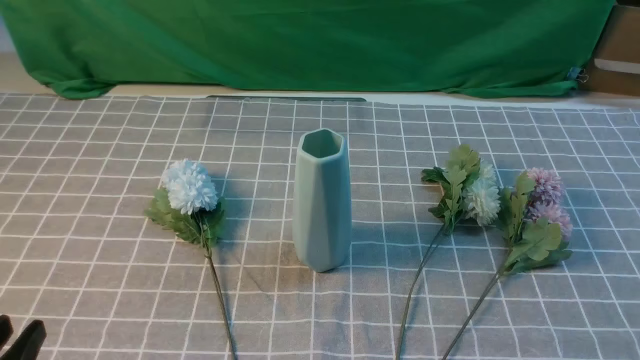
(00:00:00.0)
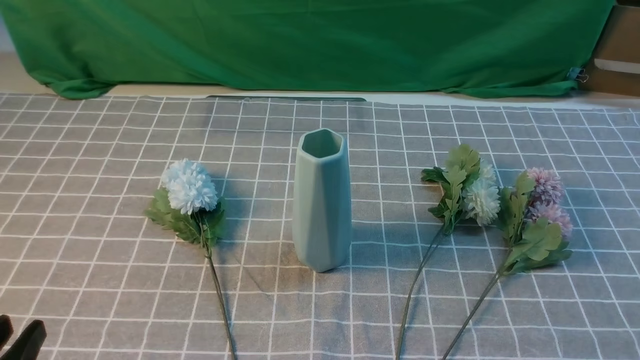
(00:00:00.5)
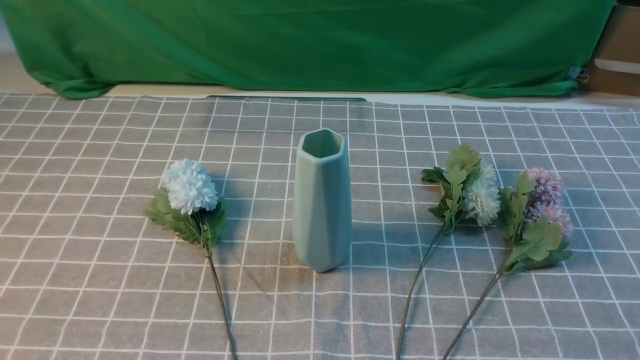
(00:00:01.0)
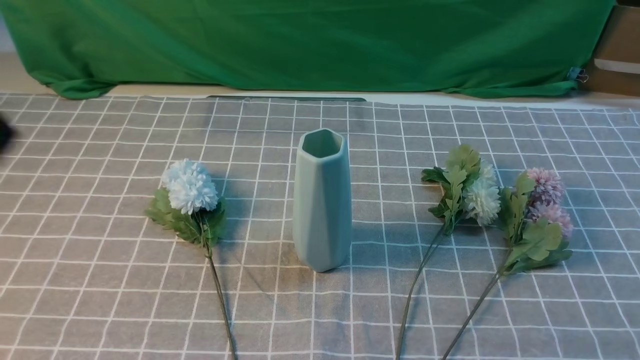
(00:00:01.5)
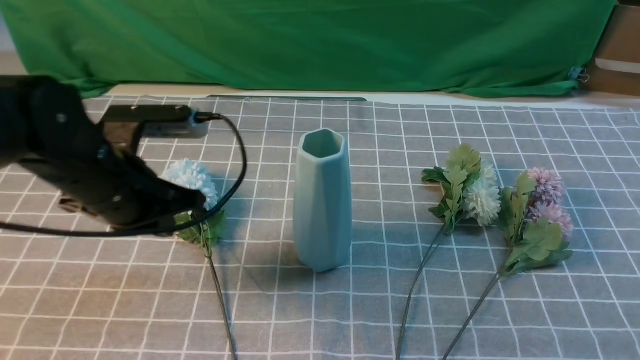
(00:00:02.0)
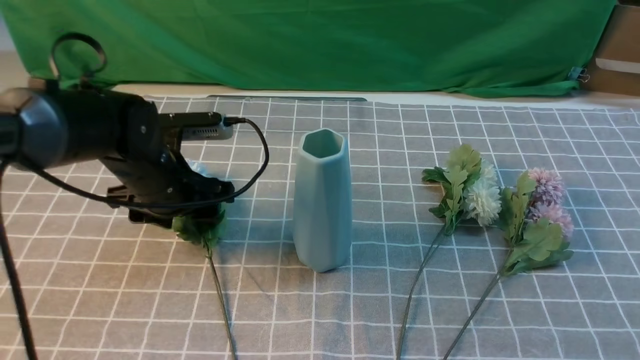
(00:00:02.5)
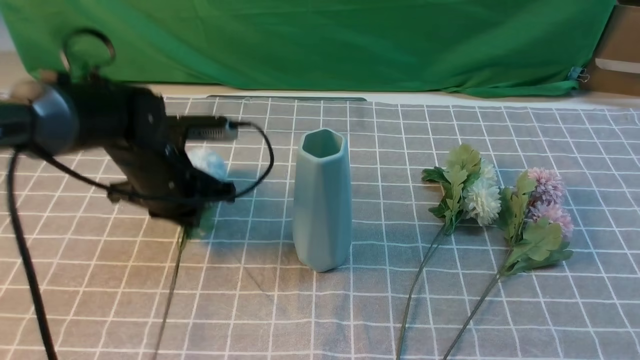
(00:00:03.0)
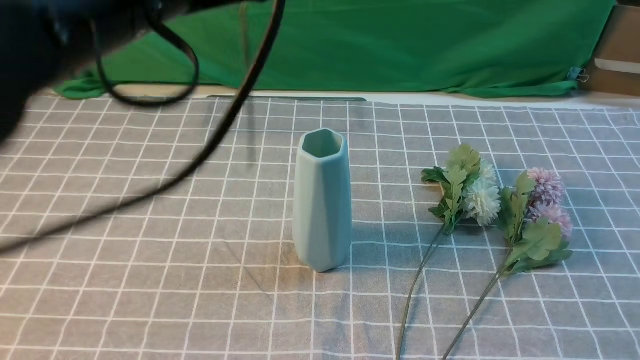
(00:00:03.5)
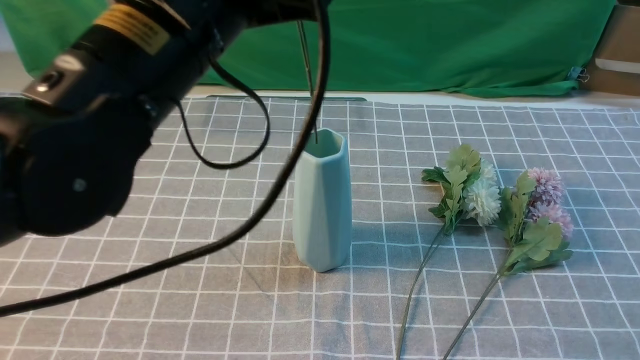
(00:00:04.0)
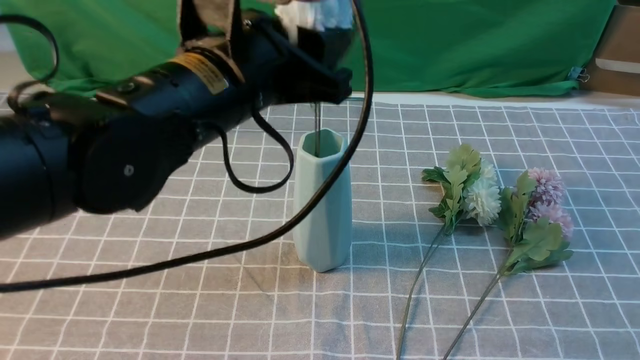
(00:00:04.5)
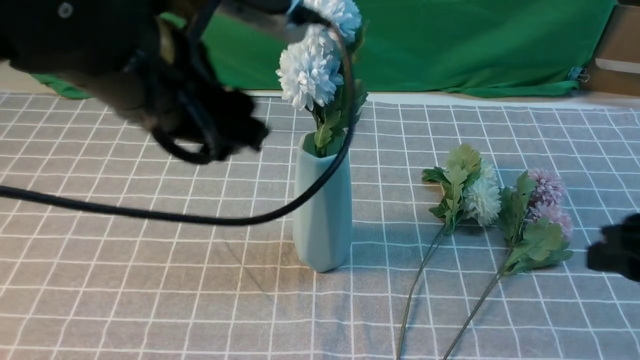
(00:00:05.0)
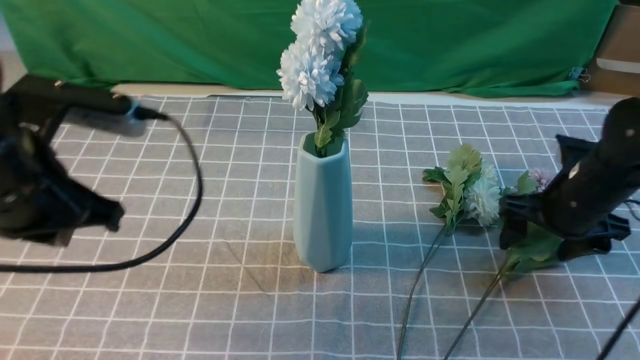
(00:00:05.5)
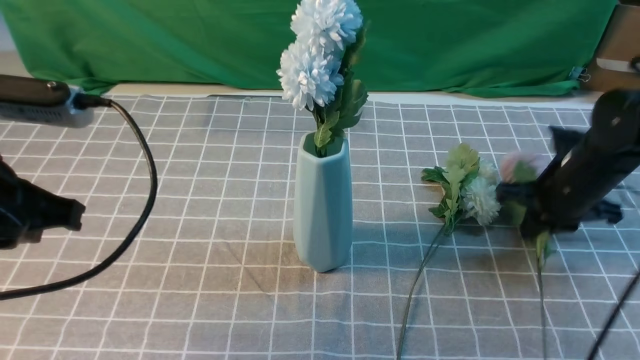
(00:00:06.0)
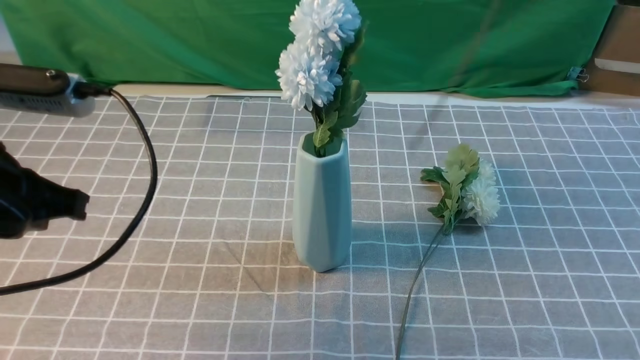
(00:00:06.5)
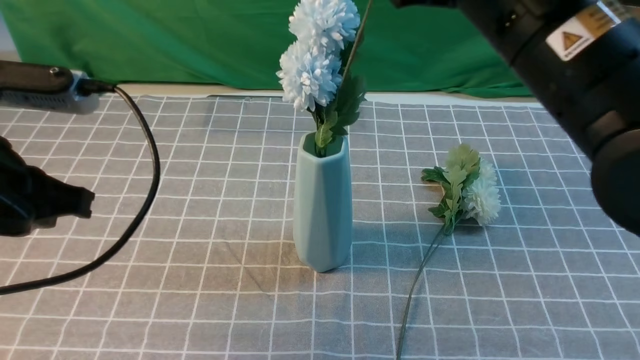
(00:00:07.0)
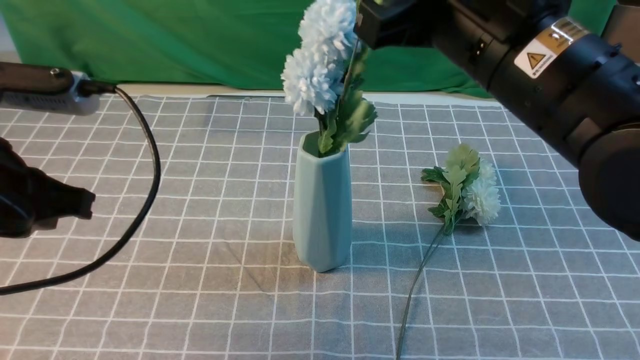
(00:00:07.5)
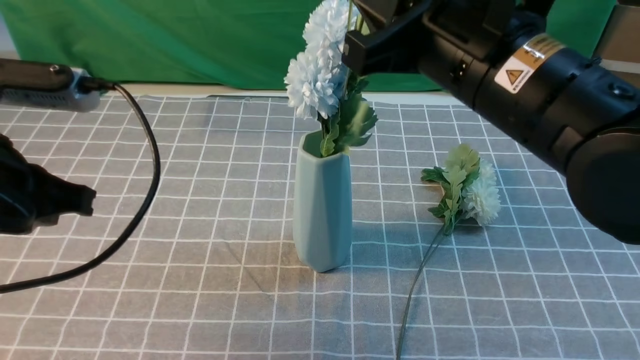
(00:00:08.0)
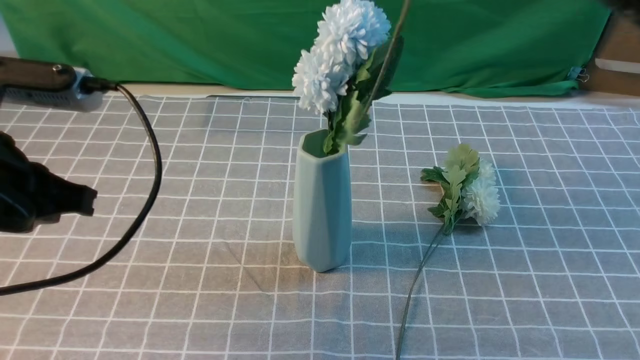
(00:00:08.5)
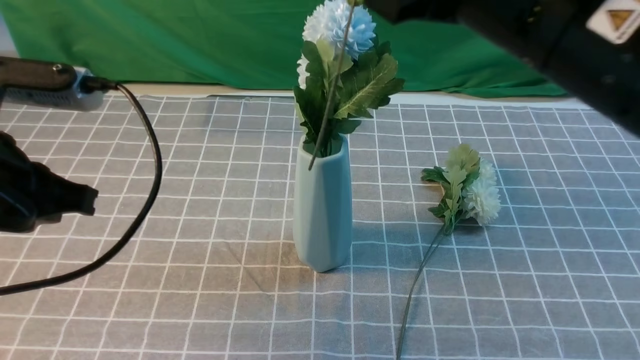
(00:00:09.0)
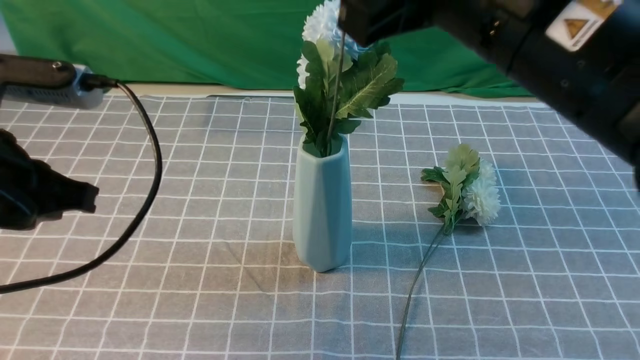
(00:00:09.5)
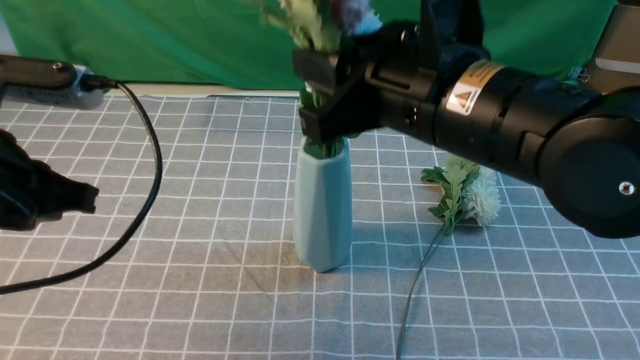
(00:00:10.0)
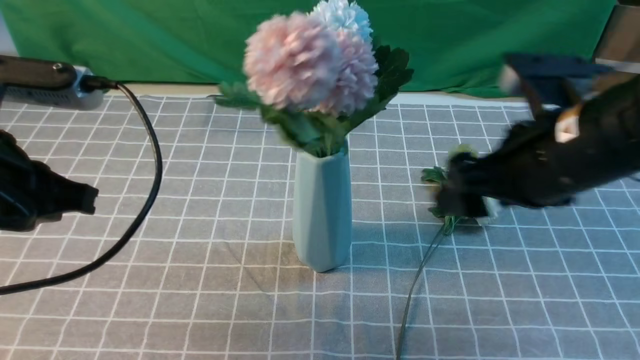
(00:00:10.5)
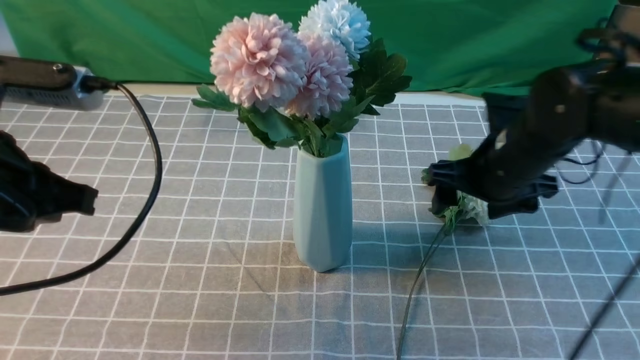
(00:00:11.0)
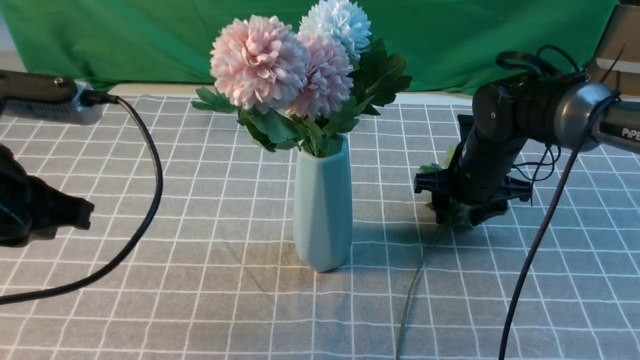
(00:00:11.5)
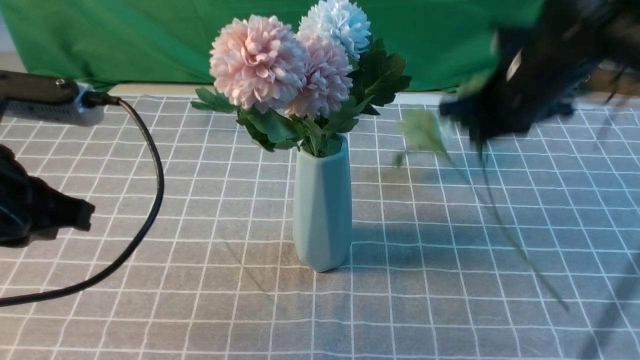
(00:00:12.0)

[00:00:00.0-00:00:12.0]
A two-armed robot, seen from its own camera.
Task of the whole recording: insert the flowers into the vase on the table with the grey tablecloth.
Step, 00:00:00.0 to 00:00:03.0: use the left arm to grab a bunch of fresh flowers.
Step, 00:00:03.5 to 00:00:04.5: use the left arm to insert the flowers into the vase.
Step, 00:00:05.0 to 00:00:05.5: use the right arm to grab a bunch of fresh flowers.
Step, 00:00:06.0 to 00:00:10.0: use the right arm to insert the flowers into the vase.
Step, 00:00:10.5 to 00:00:11.5: use the right arm to grab a bunch of fresh flowers.
00:00:00.0 to 00:00:02.0: The right gripper is displaced upward by approximately 10 cm. The left gripper goes about 25 cm forward, and closes.
00:00:02.0 to 00:00:04.0: The left gripper travels upward and to the right by about 20 cm, and opens, then closes once more, while the right gripper shifts by roughly 5 cm.
00:00:04.0 to 00:00:06.0: The right gripper goes approximately 30 cm forward and downward, and opens, then closes once more. The left gripper heads to the left and downward, covering about 15 cm, and opens and closes again.
00:00:06.0 to 00:00:08.0: The right gripper goes about 25 cm upward, to the left and backward.
00:00:08.0 to 00:00:10.0: The right gripper goes upward and returns, some 5 cm each way, and opens.
00:00:10.0 to 00:00:12.0: The right gripper moves forward and to the right, approximately 15 cm, goes downward and returns, some 20 cm each way, and closes its fingers.

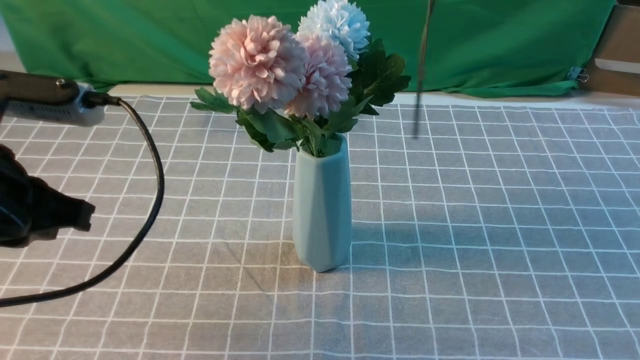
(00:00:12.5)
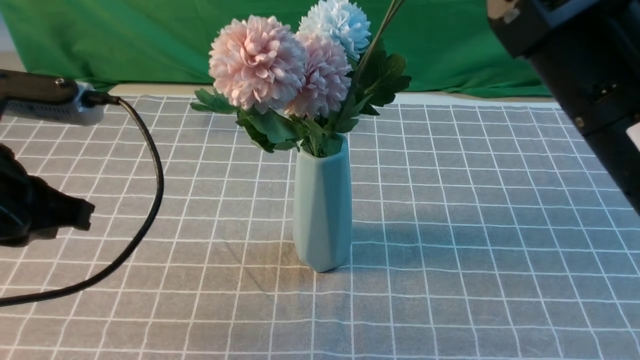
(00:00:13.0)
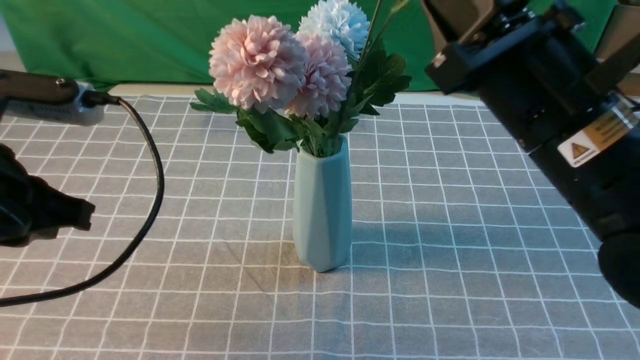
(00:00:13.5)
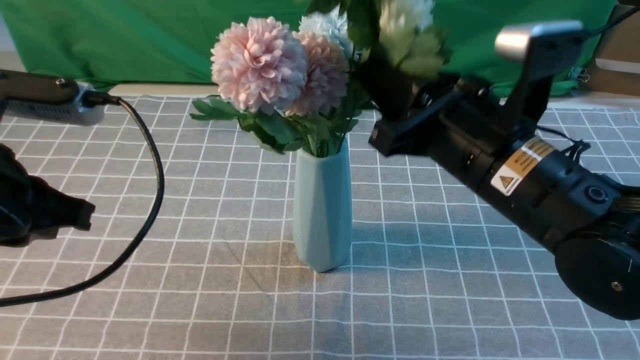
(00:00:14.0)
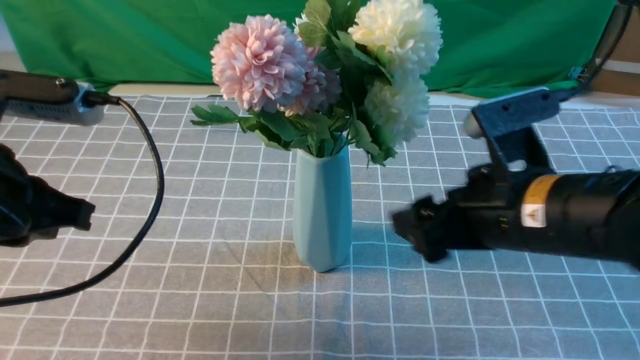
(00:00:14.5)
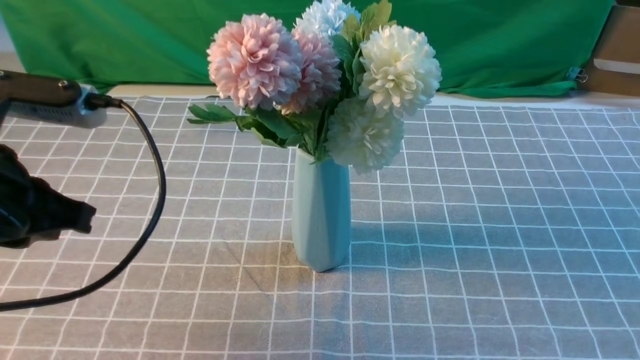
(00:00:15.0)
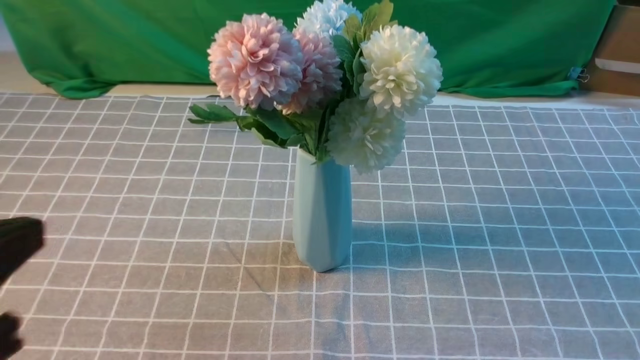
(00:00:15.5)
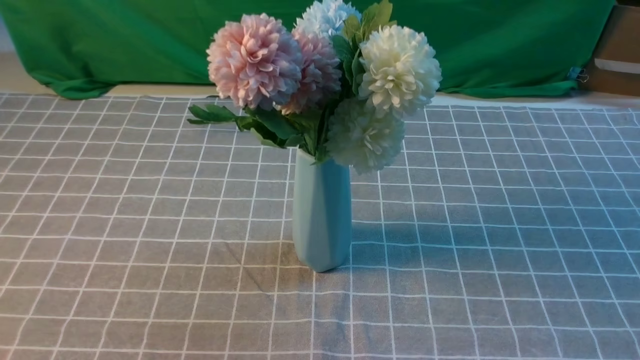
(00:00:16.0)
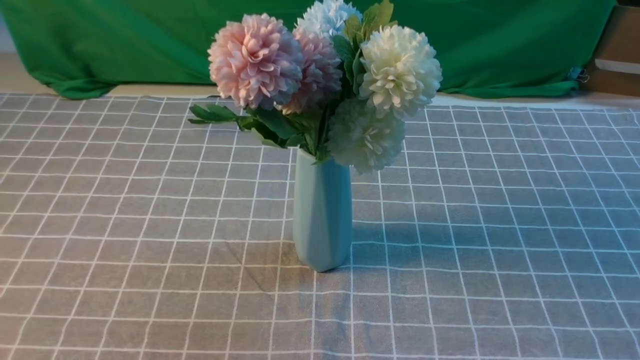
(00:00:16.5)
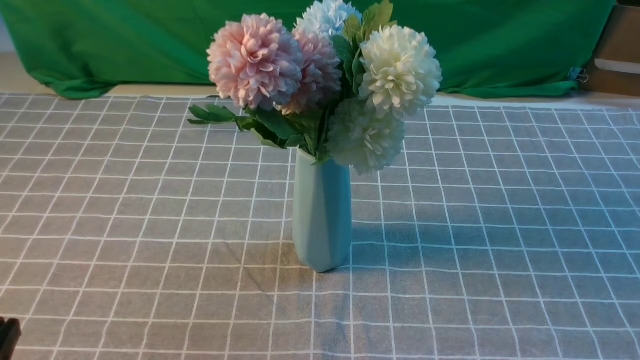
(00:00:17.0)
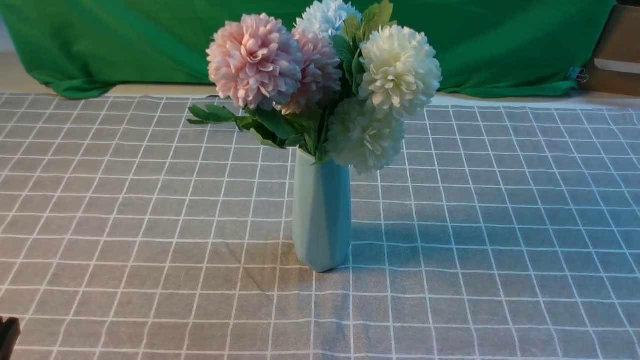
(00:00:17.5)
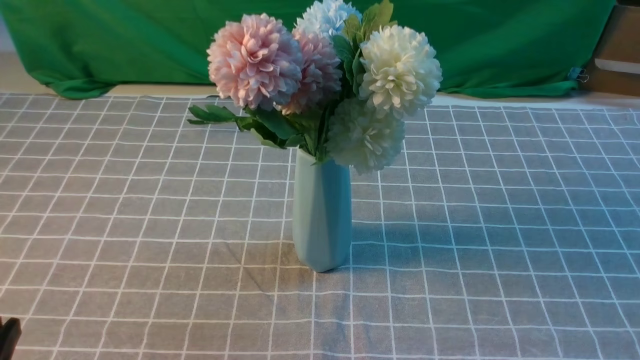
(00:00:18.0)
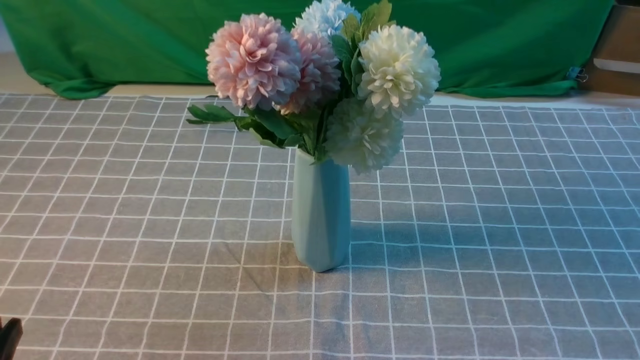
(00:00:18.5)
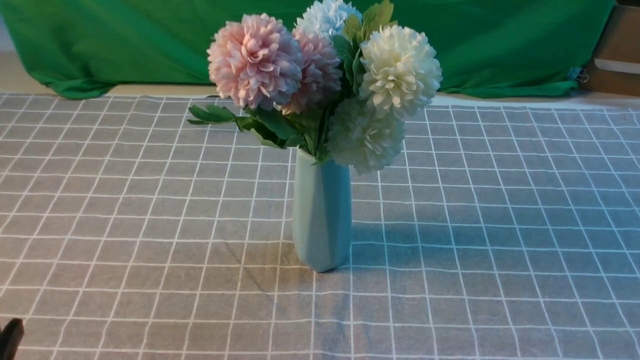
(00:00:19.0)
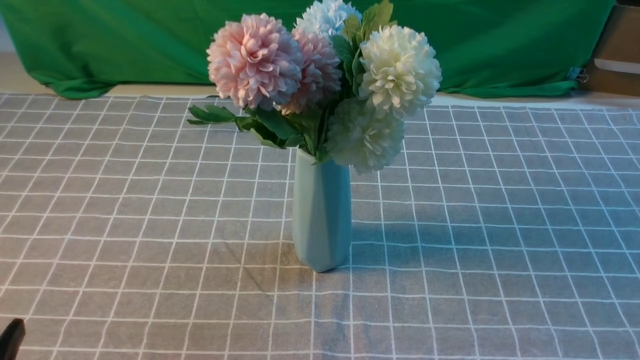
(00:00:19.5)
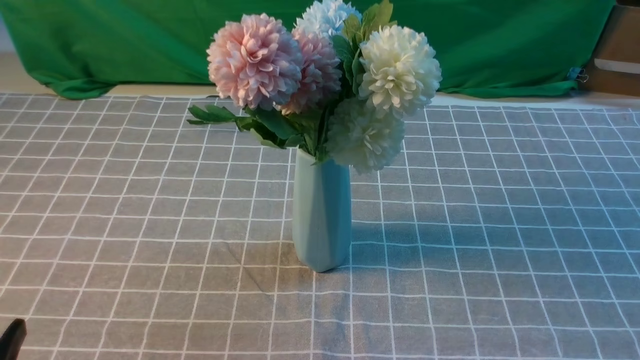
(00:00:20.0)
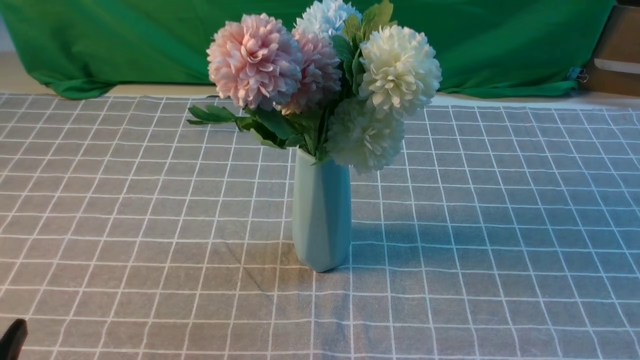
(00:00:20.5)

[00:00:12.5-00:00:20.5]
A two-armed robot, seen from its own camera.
Task of the whole recording: insert the flowers into the vase on the table with the grey tablecloth.
Step, 00:00:12.5 to 00:00:14.0: use the right arm to insert the flowers into the vase.
00:00:12.5 to 00:00:14.5: The right gripper travels downward by roughly 15 cm, and opens its fingers.
00:00:14.5 to 00:00:16.5: The left gripper moves backward, some 15 cm. The right gripper moves backward and to the right, roughly 25 cm, and closes up.
00:00:16.5 to 00:00:18.5: The left gripper is displaced downward by roughly 10 cm.
